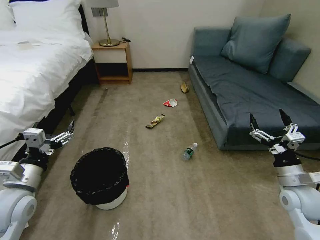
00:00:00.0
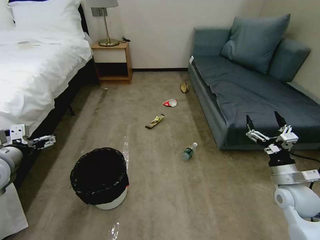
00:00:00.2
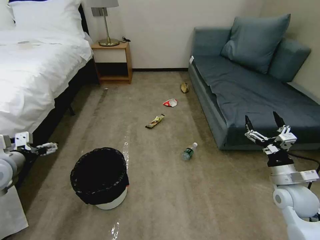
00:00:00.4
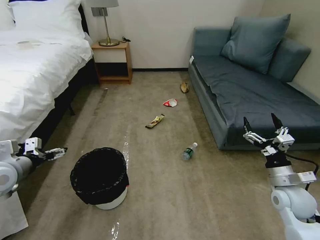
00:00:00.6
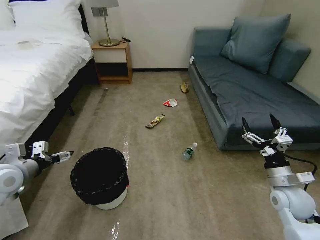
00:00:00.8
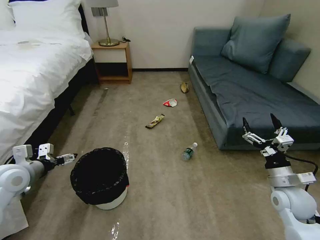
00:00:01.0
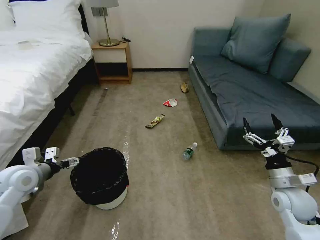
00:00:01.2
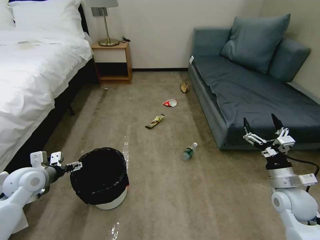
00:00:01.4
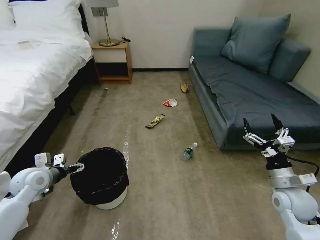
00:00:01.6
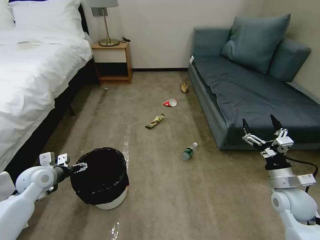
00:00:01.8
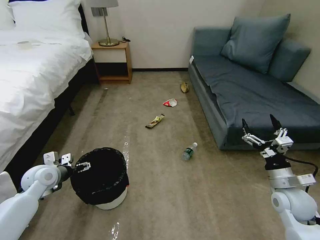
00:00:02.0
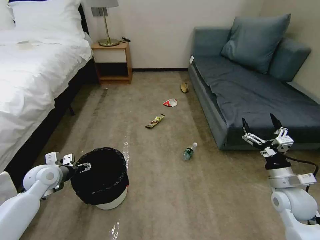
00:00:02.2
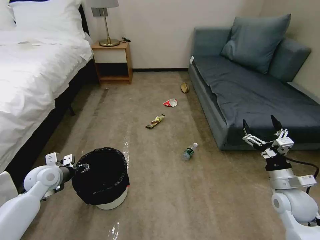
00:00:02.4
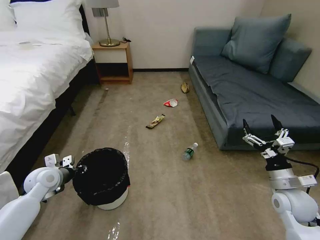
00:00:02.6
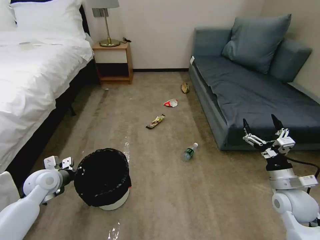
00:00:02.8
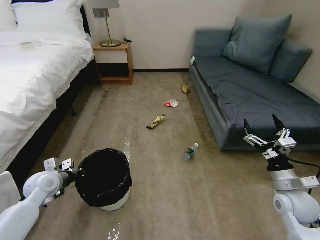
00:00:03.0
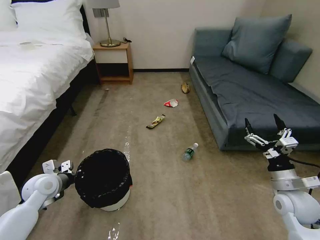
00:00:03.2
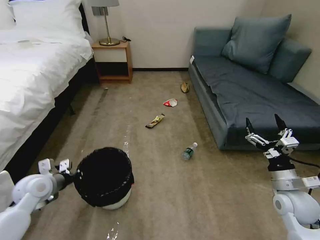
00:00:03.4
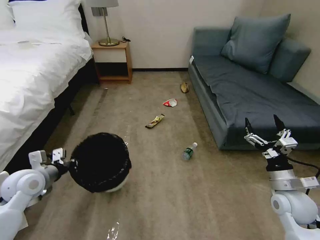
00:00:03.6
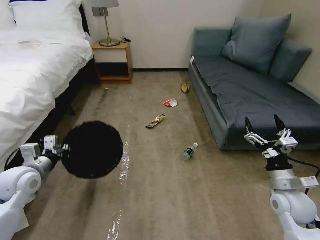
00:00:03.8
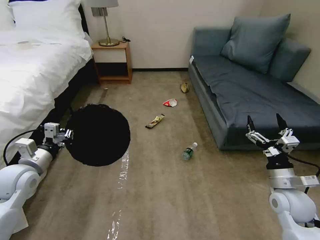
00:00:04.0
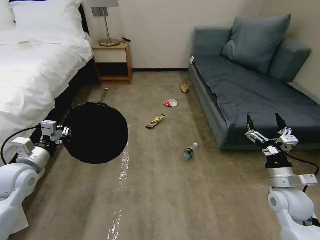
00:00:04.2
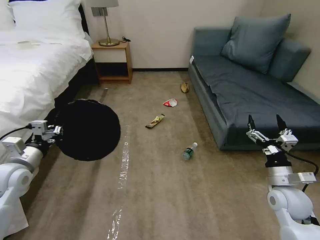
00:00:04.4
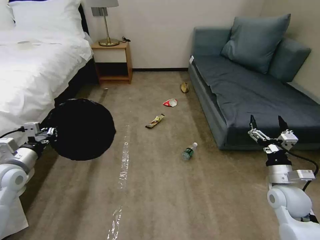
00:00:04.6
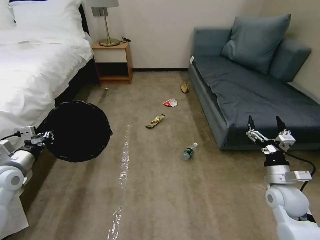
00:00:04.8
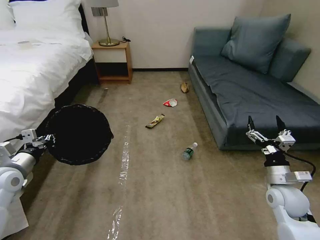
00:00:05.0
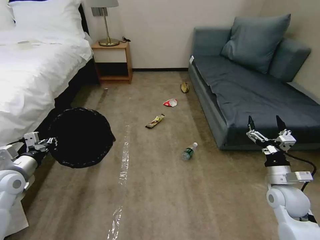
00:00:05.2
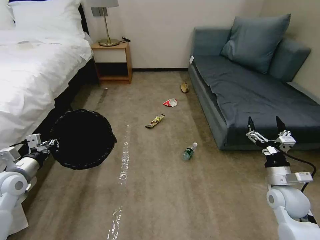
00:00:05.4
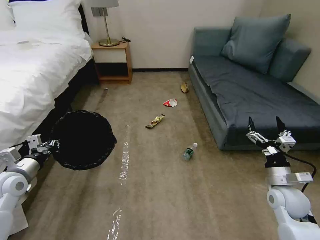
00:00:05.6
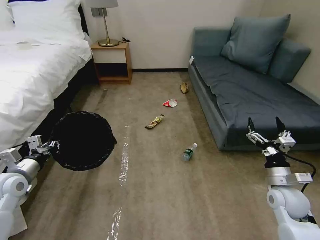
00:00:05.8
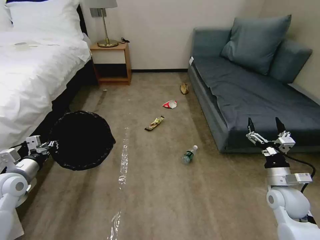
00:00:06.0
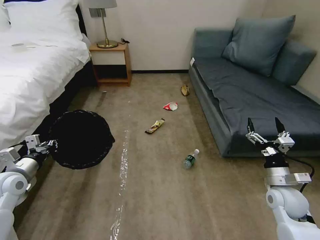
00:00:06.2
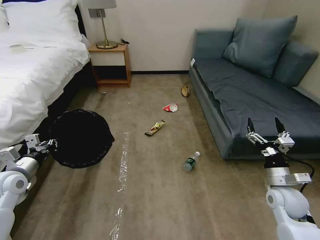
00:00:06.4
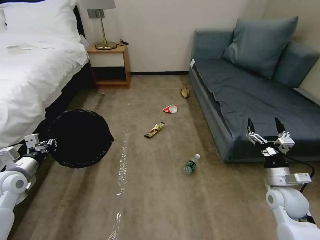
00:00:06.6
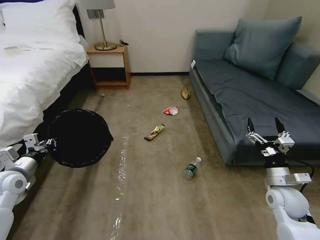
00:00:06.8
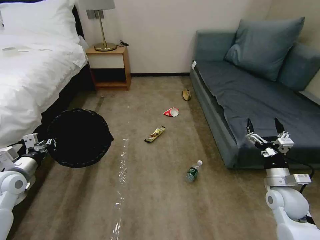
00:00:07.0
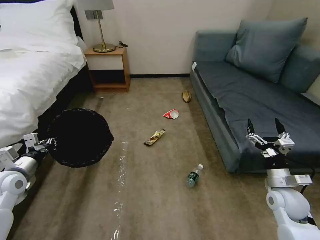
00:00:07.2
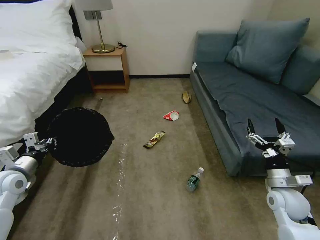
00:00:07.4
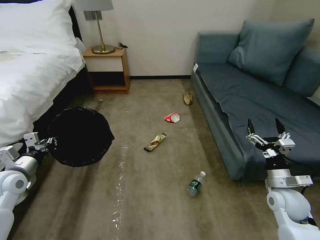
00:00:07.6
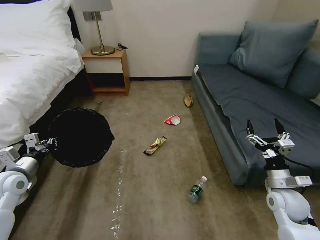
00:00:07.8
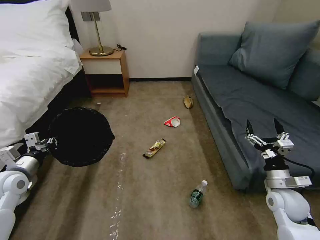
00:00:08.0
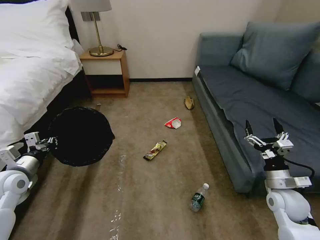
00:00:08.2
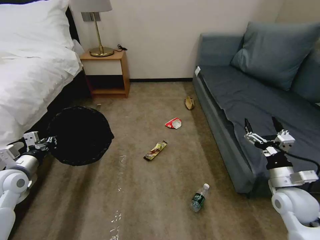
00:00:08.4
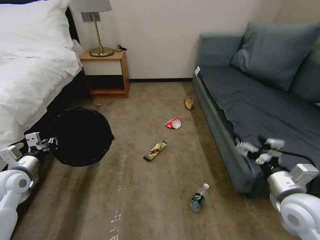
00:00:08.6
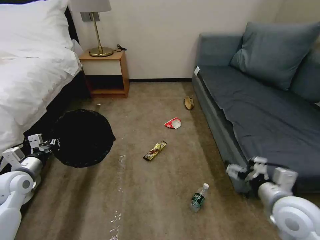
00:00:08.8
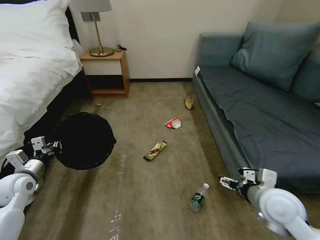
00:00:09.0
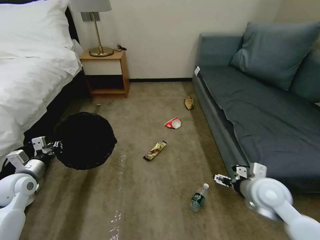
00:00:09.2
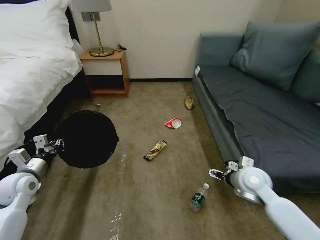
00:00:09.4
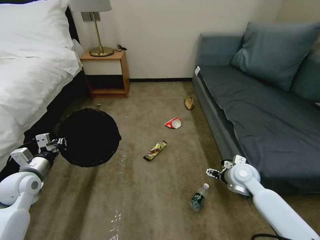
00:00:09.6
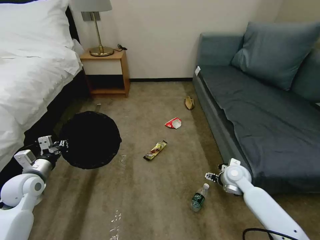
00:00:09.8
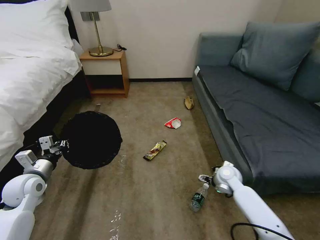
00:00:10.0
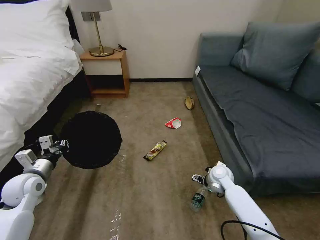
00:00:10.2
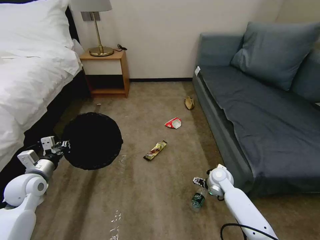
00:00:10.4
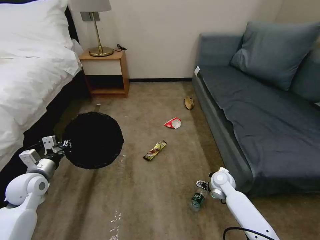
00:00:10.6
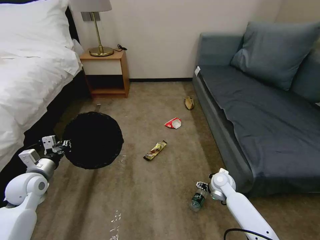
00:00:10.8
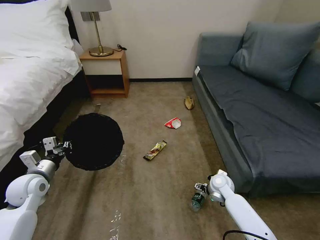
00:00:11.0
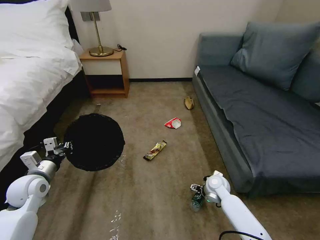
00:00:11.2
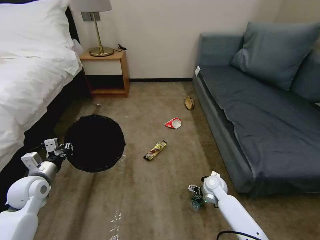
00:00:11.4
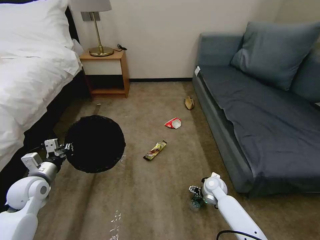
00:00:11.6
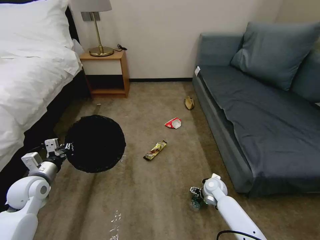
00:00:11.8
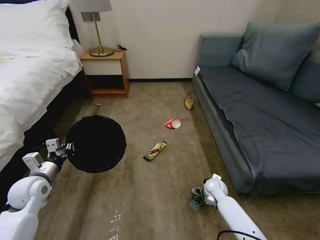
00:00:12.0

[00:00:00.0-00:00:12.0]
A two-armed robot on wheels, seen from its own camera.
Task of the whole recording: Pick up the trash bin, then pick up the garbage on the floor and place it into the trash bin.
00:00:01.6 to 00:00:03.0: The left gripper closes its fingers.
00:00:03.0 to 00:00:04.4: The left gripper travels upward by approximately 10 cm.
00:00:07.6 to 00:00:09.0: The right gripper heads to the left and upward, covering about 10 cm.
00:00:09.0 to 00:00:10.4: The right gripper moves downward and forward, approximately 25 cm.
00:00:10.4 to 00:00:12.0: The right gripper shifts roughly 5 cm downward.

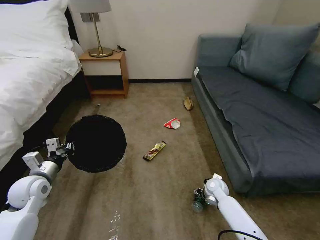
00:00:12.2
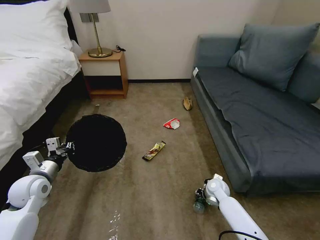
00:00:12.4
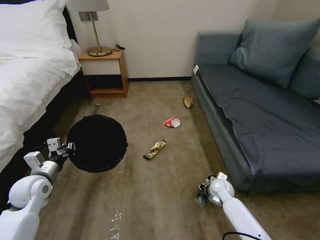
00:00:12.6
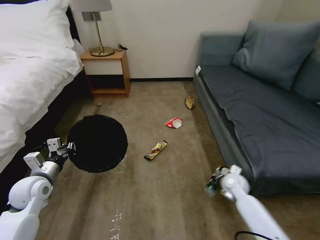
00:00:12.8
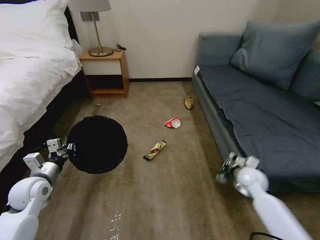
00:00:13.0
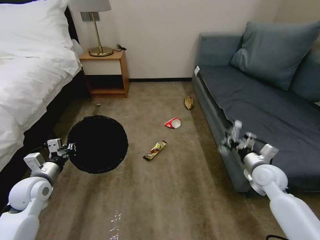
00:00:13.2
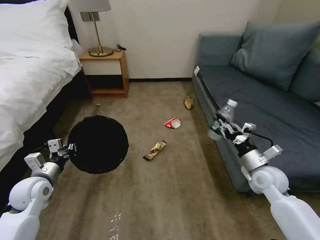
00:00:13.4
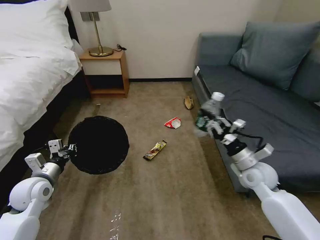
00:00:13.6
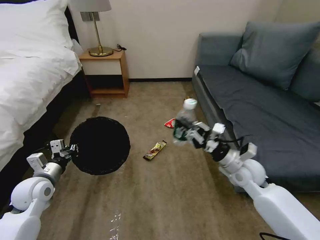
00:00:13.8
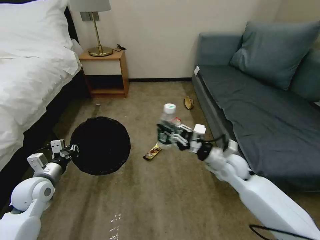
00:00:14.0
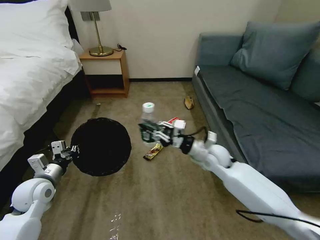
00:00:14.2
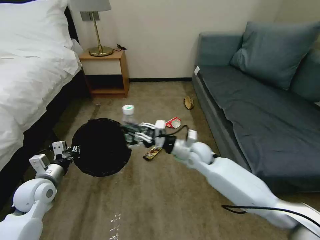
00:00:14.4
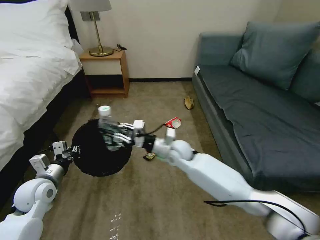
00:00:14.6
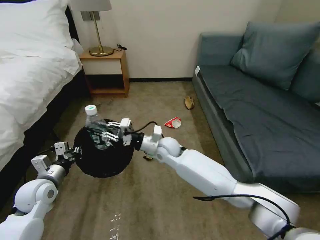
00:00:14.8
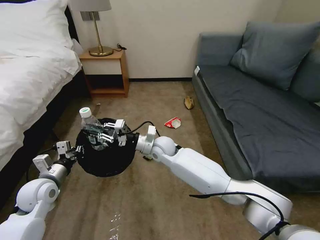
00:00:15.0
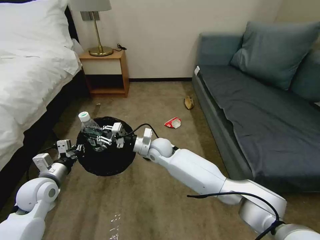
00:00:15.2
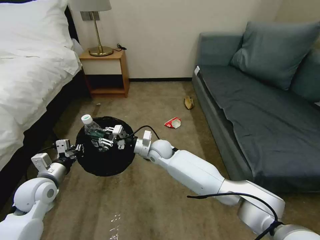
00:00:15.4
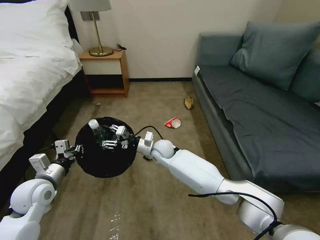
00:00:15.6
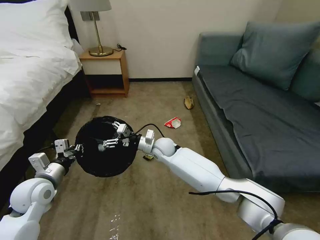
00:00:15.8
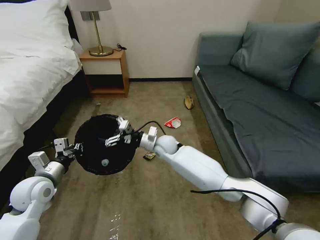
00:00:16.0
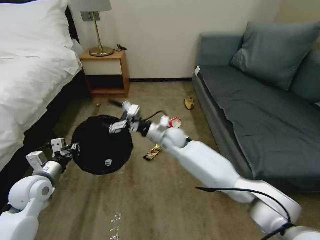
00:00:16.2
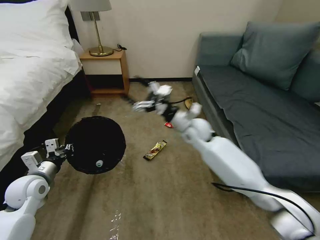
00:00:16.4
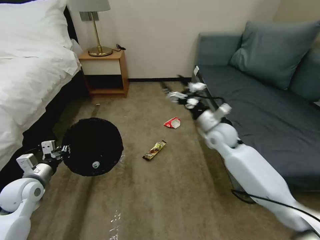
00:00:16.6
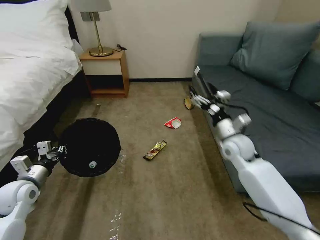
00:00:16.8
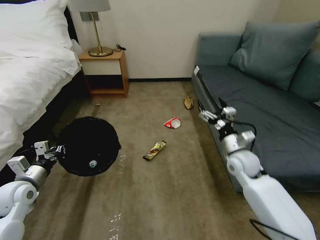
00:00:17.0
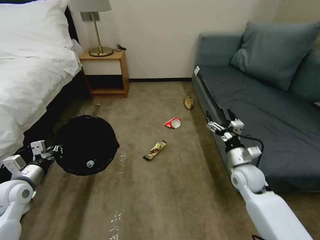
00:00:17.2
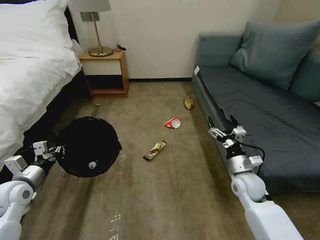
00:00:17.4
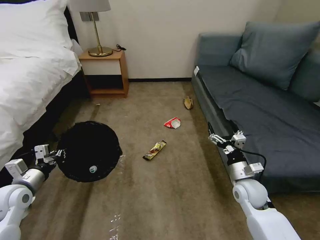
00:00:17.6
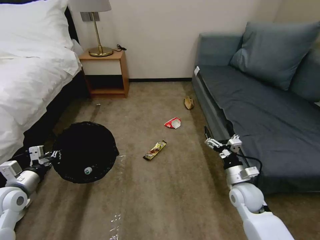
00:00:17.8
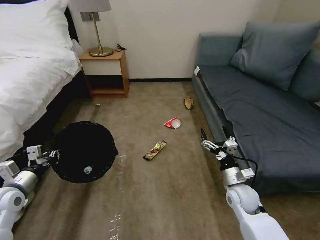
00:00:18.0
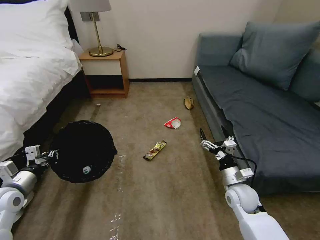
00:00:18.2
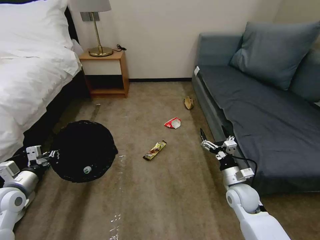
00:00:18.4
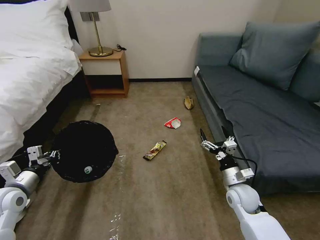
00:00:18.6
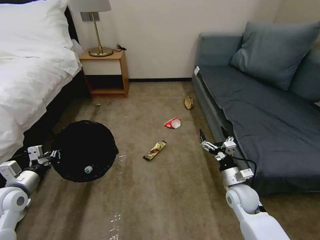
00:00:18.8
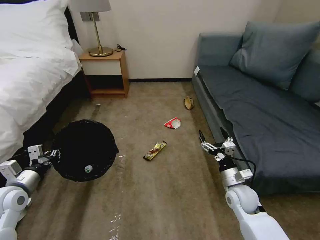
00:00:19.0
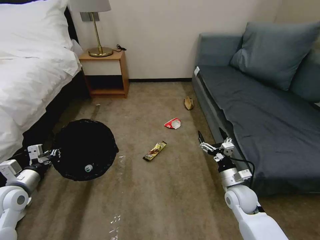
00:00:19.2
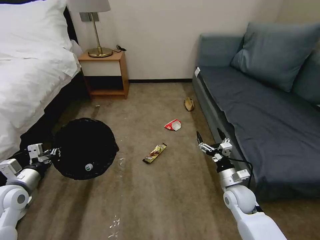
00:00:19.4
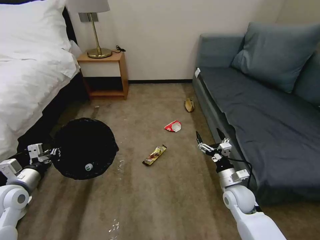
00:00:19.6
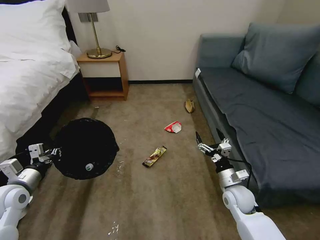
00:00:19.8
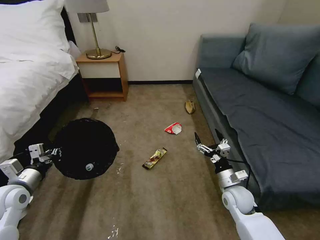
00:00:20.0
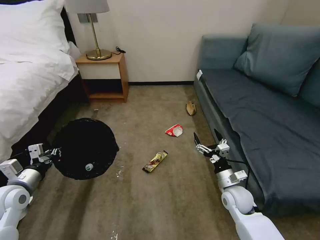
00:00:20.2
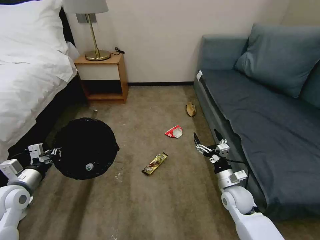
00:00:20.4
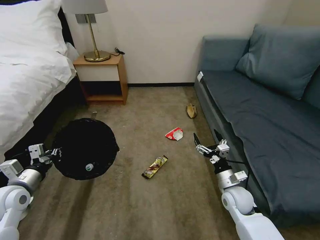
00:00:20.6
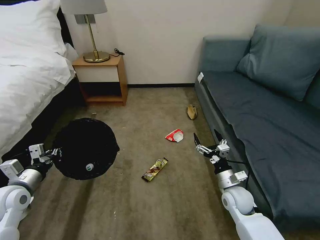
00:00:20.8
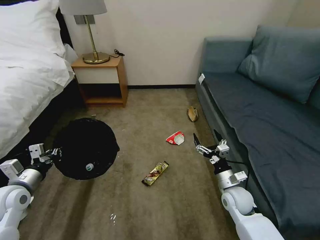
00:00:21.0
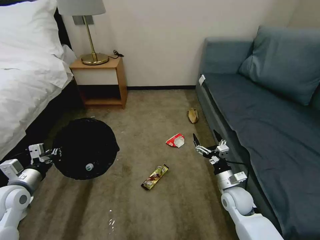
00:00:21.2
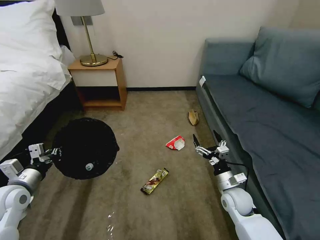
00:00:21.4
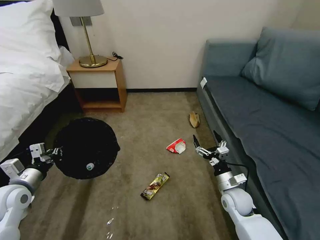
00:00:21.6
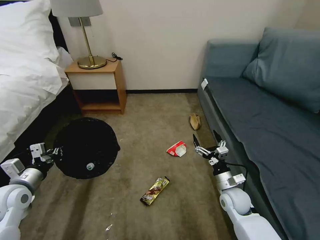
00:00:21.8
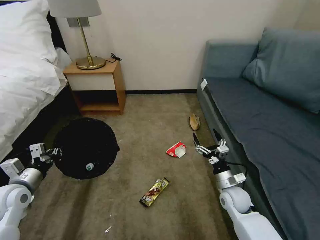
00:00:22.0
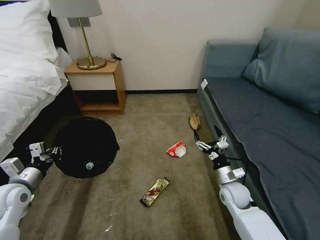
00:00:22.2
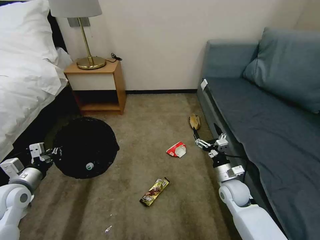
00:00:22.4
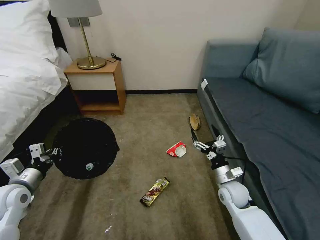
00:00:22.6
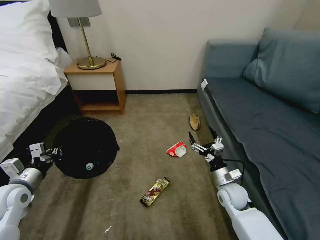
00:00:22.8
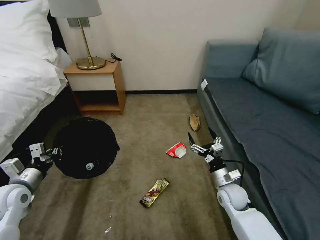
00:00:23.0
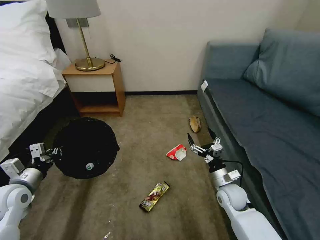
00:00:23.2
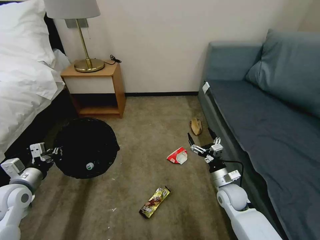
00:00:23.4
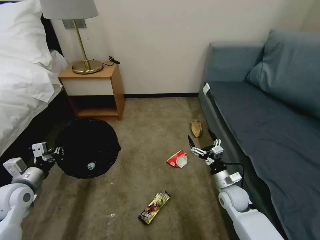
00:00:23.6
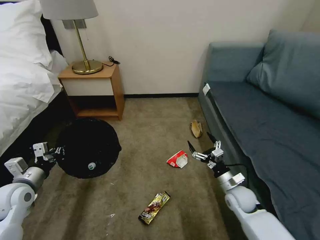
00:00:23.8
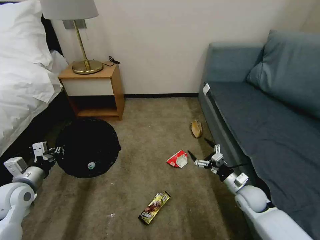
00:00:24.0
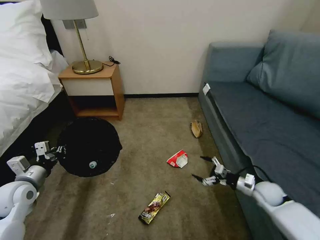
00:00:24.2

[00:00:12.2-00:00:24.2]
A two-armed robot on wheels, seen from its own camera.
Task of the whole recording: Pick up the trash bin, then pick up the garbage on the floor and place it into the trash bin.
00:00:12.2 to 00:00:13.8: The right gripper moves upward, roughly 20 cm, and closes up.
00:00:13.8 to 00:00:15.2: The right gripper travels to the left by approximately 30 cm.
00:00:15.2 to 00:00:16.6: The right gripper moves to the right and upward, about 25 cm, and opens.
00:00:16.6 to 00:00:18.2: The left gripper ends up roughly 5 cm from where it was, while the right gripper moves downward, backward and to the right, some 25 cm.
00:00:18.2 to 00:00:19.8: The grippers move only a little.
00:00:19.8 to 00:00:21.2: Both grippers stay about where they are.
00:00:21.2 to 00:00:22.6: There are only small adjustments of the grippers.
00:00:22.6 to 00:00:24.2: The right gripper travels to the right by roughly 15 cm.
